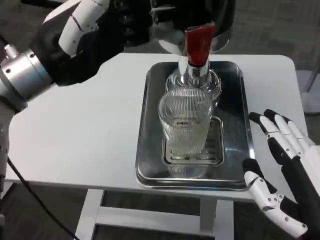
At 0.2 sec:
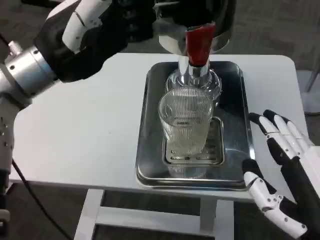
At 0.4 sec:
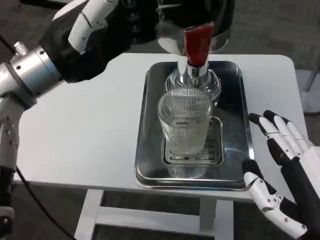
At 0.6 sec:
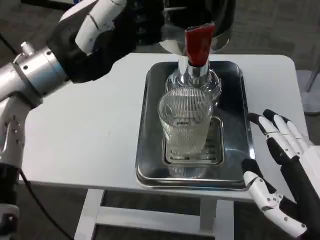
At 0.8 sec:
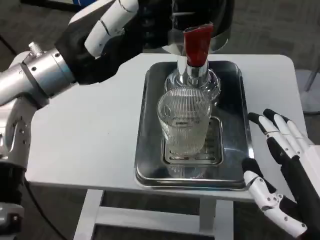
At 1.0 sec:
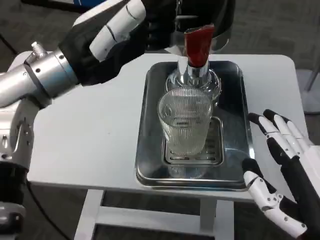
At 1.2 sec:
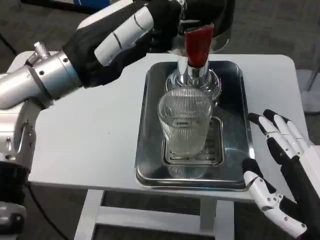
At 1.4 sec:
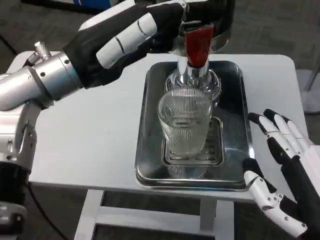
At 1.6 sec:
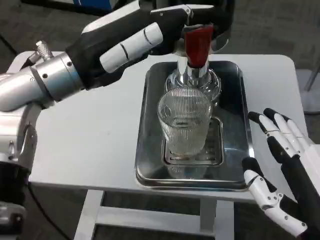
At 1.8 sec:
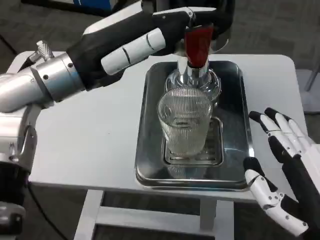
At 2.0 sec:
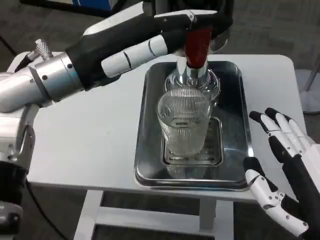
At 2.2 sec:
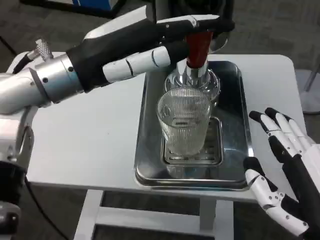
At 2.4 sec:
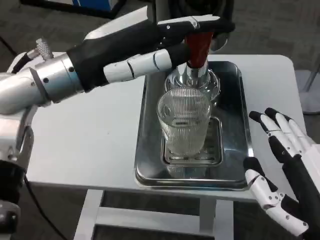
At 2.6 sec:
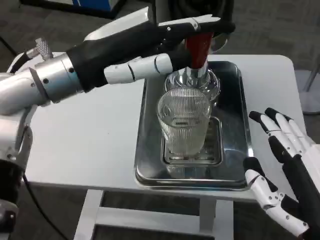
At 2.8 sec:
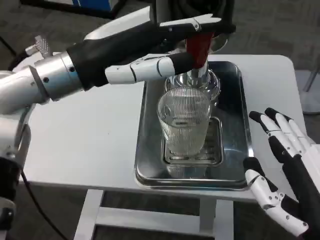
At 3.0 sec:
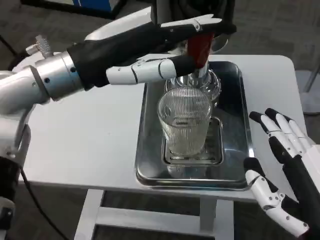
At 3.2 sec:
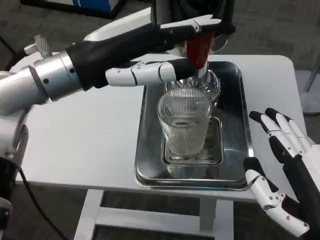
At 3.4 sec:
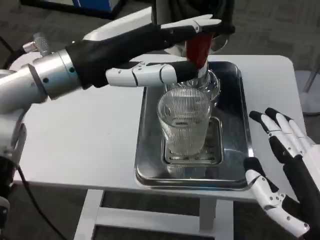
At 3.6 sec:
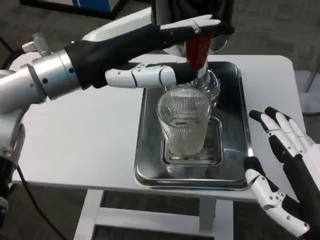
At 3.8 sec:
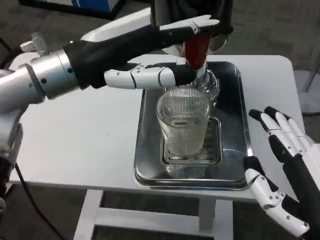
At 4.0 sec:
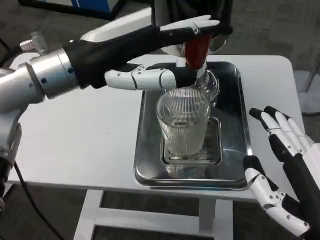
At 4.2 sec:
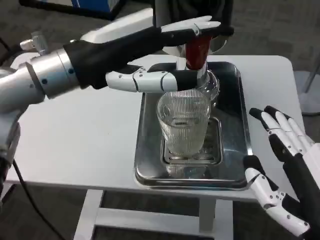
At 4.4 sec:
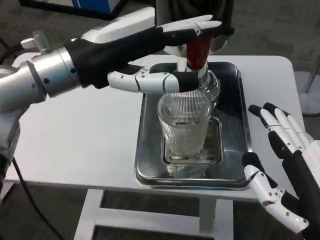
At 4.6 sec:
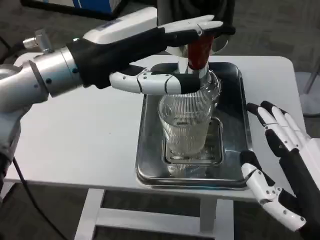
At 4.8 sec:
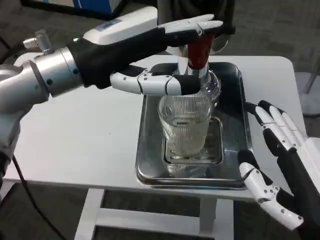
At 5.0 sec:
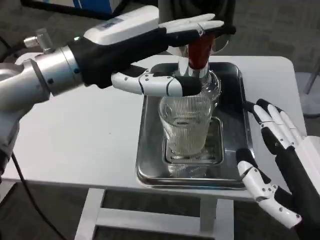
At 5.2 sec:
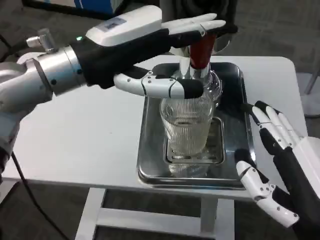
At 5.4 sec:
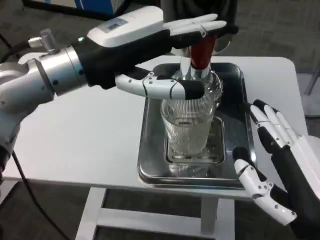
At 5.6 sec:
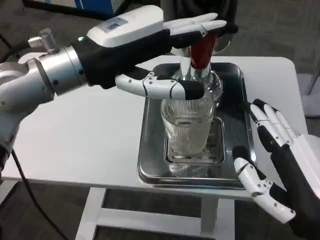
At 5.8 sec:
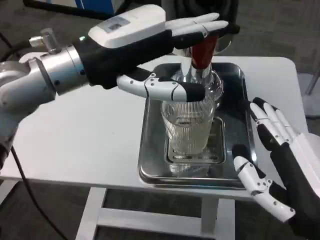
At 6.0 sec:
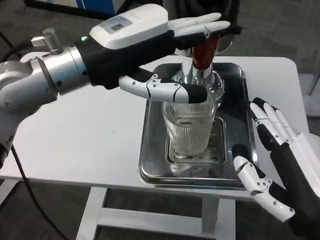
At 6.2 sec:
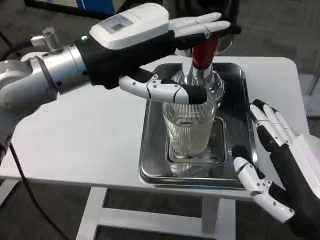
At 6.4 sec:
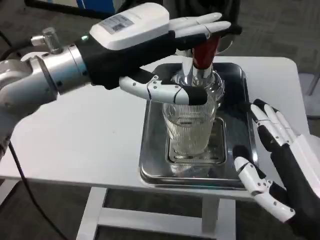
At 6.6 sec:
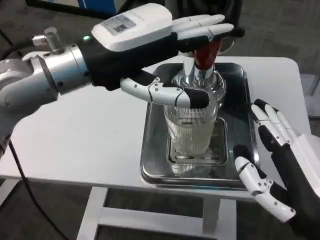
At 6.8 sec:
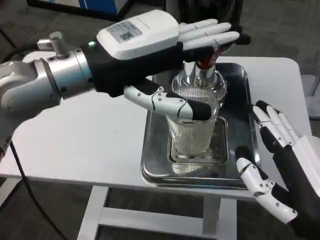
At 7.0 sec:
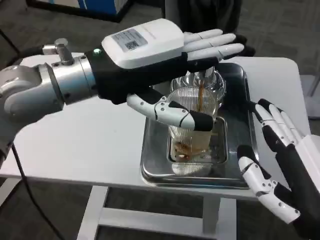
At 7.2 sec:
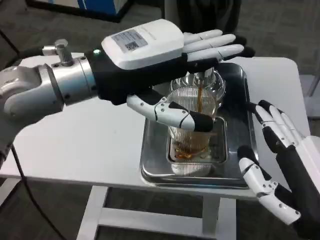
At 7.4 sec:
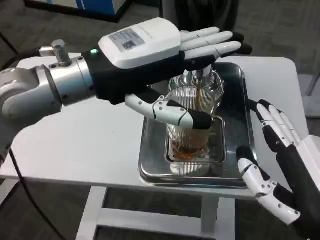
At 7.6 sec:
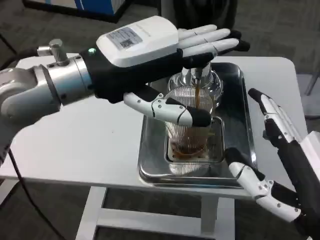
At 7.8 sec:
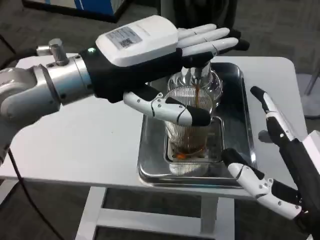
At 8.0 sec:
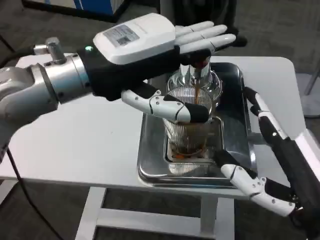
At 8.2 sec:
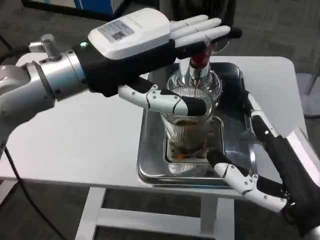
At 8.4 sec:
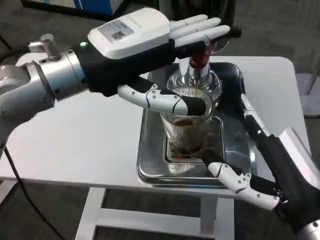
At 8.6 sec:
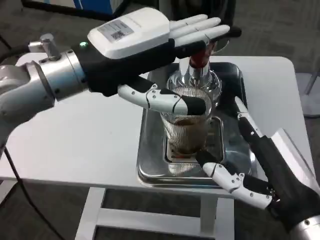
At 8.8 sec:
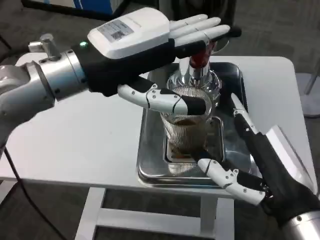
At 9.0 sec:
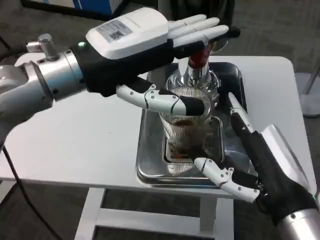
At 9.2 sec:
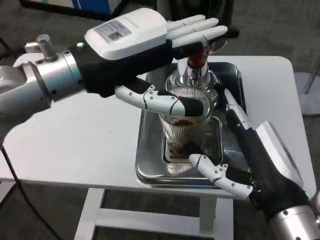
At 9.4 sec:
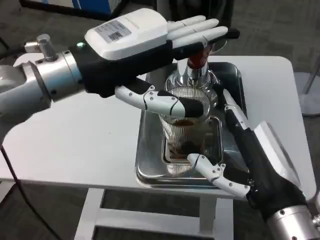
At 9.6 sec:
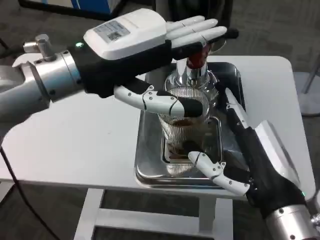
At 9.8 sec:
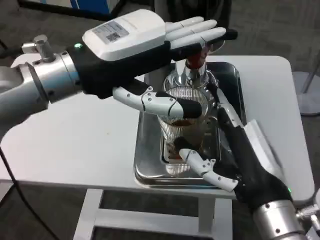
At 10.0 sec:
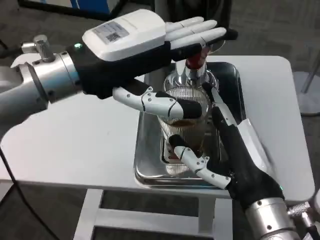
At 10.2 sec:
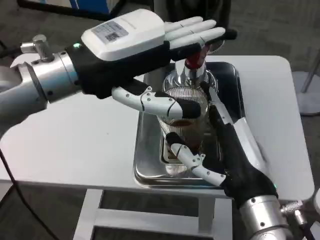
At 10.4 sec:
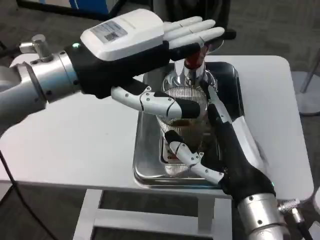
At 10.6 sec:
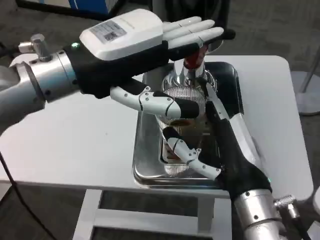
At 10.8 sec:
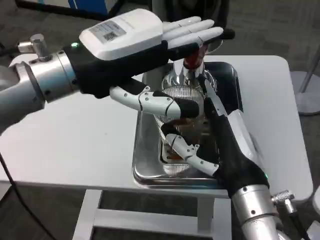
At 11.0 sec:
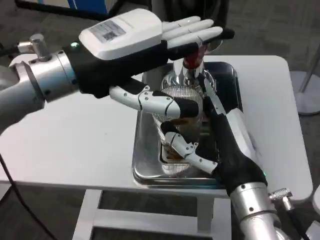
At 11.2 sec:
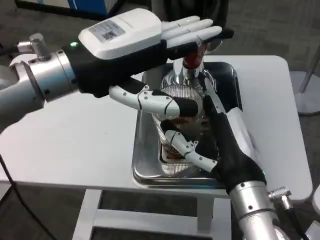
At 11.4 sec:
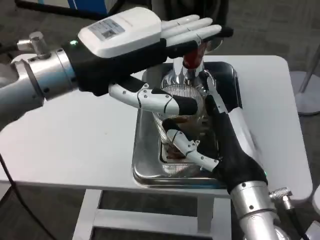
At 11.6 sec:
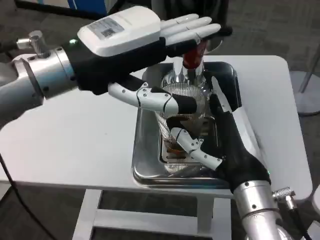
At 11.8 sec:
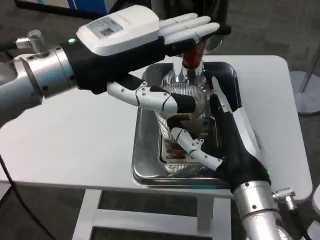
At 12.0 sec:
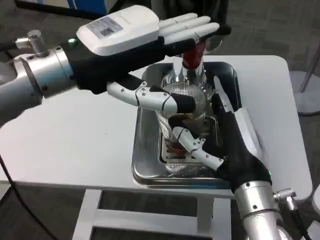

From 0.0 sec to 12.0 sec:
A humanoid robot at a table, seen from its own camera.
Task of the whole recording: Grasp the cup under the faucet to collect the drink, then remove the cup.
From 1.6 sec to 3.0 sec: The hands stay close to where they were, moving slightly.
From 7.6 sec to 9.0 sec: The right hand shifts by approximately 5 cm.
From 9.0 sec to 10.4 sec: The right hand ends up about 5 cm from where it was.

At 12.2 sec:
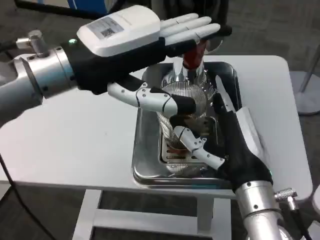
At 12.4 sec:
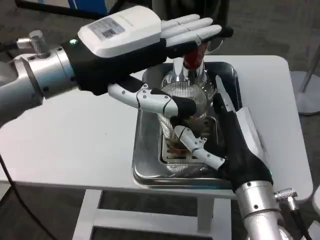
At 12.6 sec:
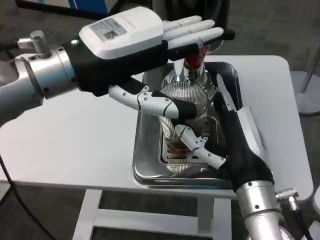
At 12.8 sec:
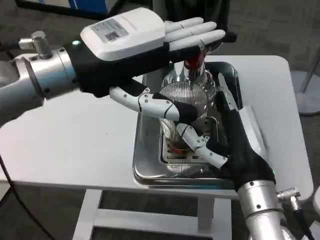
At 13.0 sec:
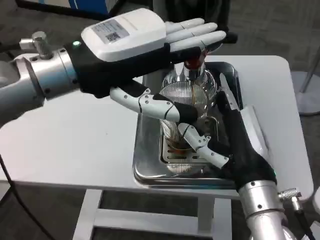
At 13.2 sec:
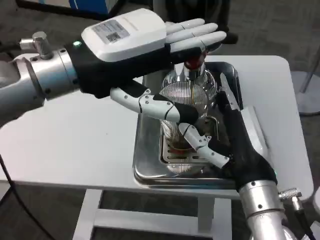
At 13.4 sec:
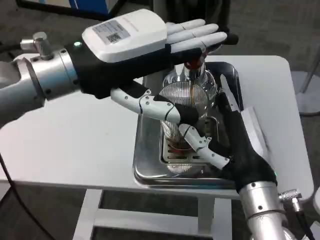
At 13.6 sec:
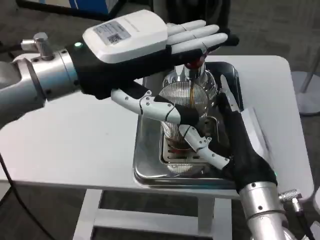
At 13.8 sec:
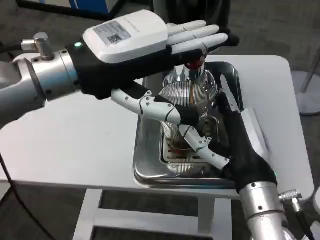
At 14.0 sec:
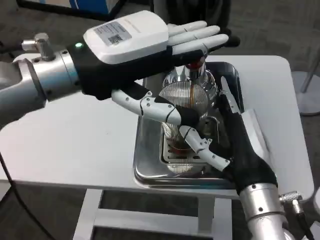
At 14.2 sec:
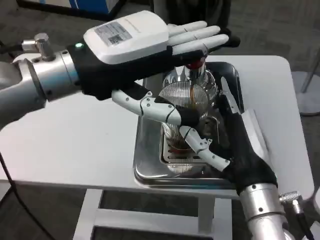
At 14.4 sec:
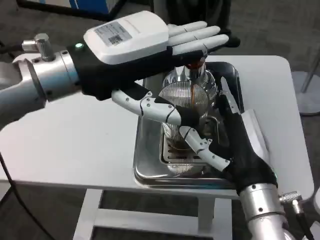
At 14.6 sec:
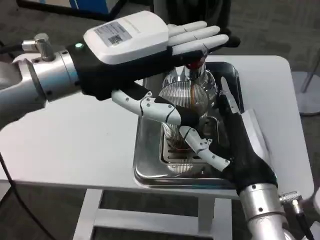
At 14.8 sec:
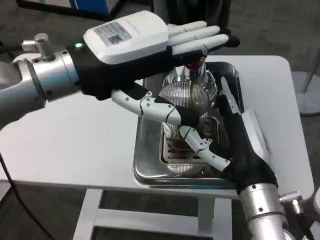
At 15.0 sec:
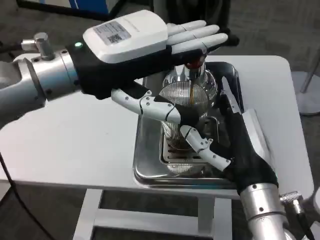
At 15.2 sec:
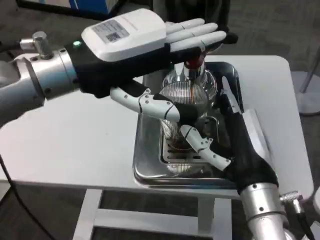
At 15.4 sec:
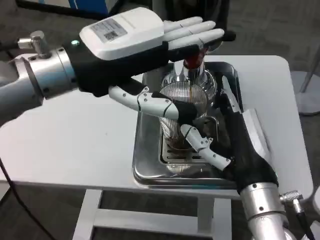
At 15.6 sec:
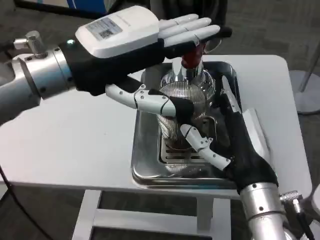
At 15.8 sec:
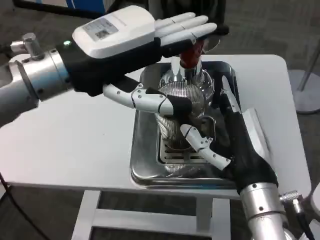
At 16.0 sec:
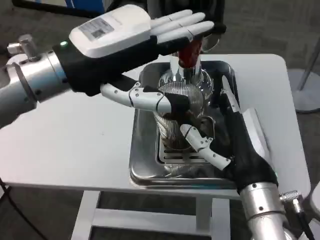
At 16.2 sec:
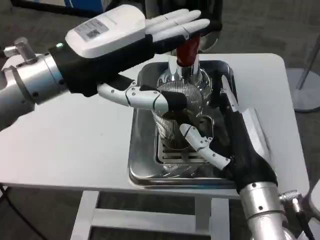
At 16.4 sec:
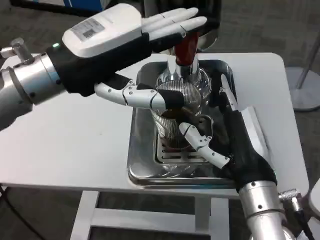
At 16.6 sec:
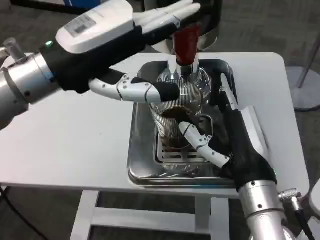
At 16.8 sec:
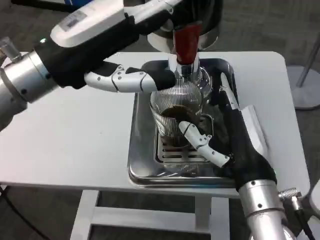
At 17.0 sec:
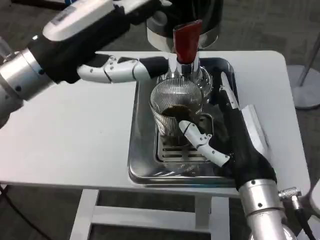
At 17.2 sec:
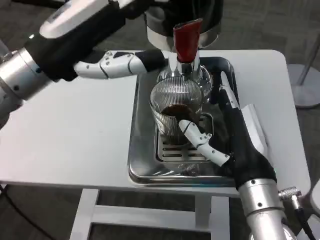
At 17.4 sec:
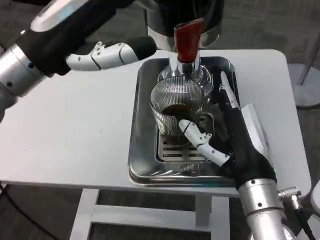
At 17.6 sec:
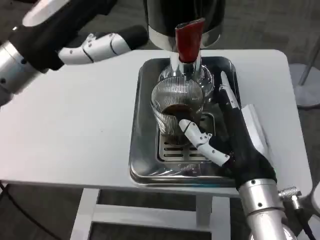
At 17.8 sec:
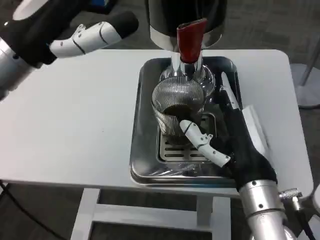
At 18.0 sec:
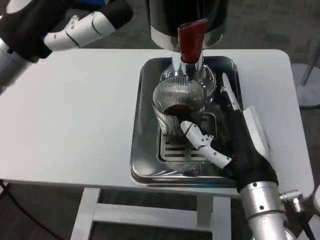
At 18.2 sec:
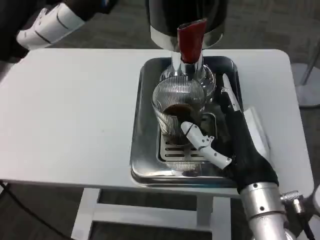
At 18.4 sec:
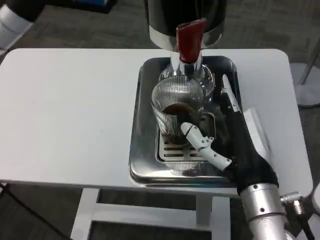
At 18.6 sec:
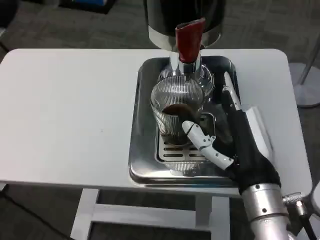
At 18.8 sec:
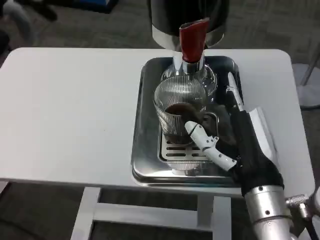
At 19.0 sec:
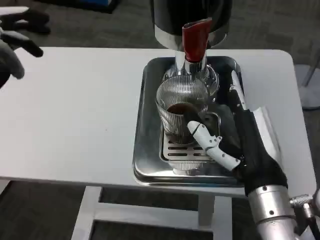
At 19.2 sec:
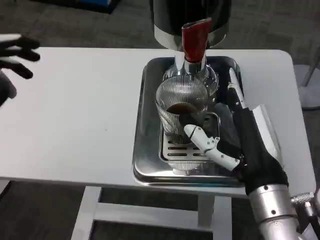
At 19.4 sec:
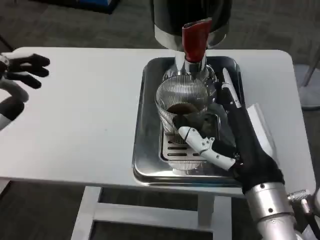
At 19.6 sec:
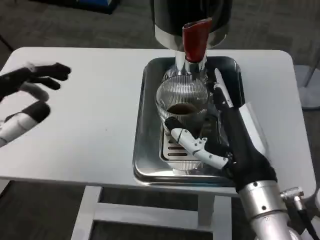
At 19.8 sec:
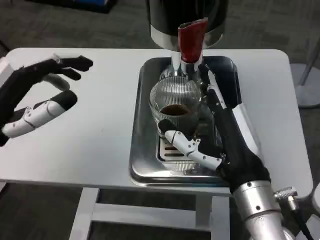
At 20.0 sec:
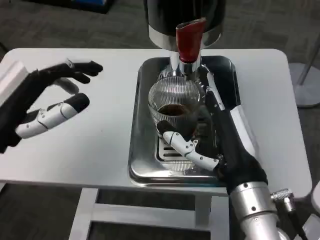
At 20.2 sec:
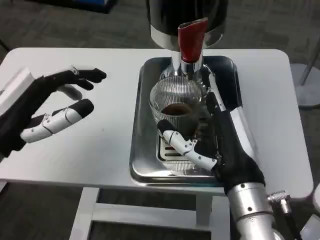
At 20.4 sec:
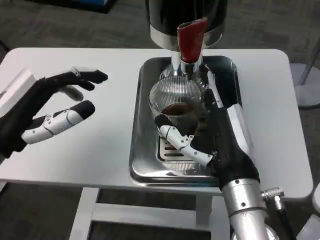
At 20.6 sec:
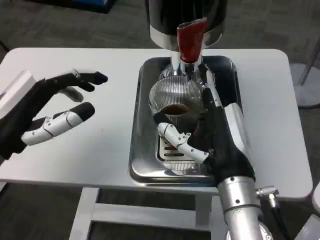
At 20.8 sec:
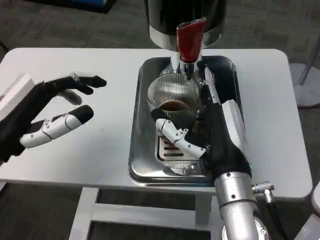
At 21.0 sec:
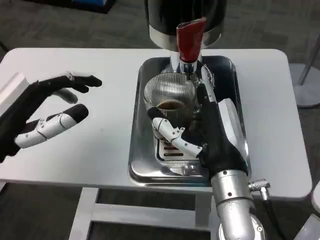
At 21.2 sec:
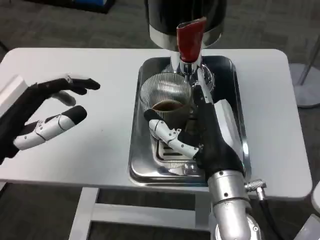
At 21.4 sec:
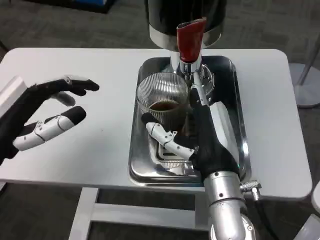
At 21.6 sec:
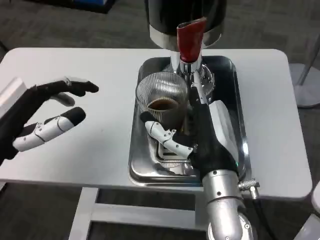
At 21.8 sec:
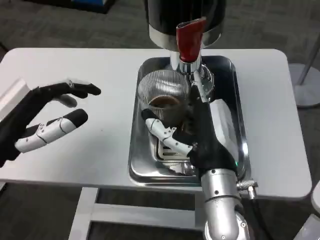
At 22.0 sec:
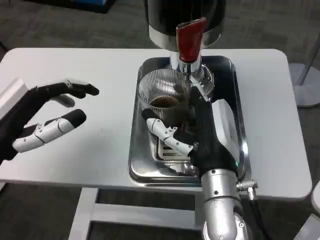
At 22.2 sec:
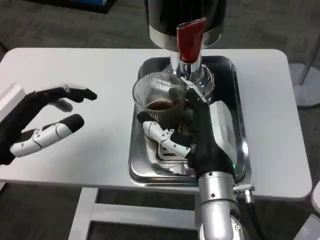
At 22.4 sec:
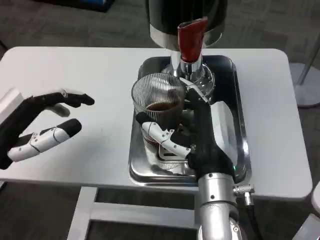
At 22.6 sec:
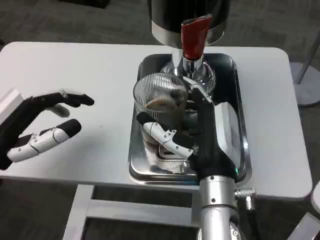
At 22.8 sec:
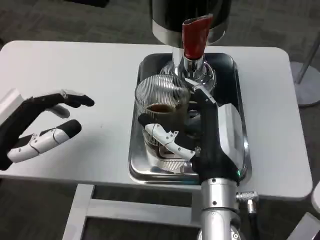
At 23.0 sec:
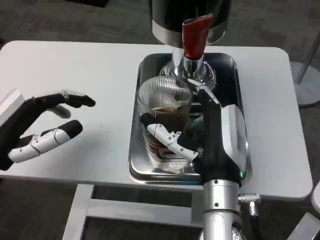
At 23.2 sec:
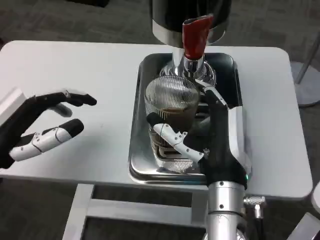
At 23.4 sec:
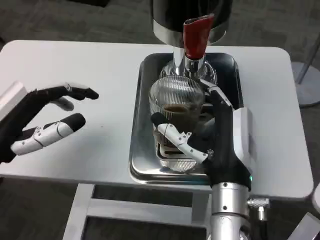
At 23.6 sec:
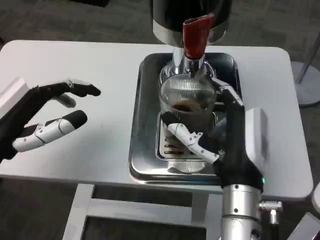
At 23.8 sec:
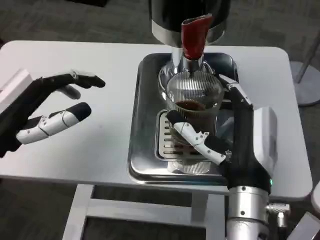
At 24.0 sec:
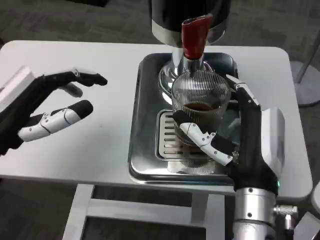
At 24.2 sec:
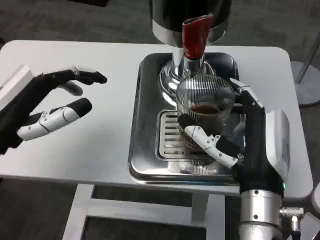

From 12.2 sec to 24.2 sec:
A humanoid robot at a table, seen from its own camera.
Task of the whole recording: Grasp the cup under the faucet to collect the drink, then remove the cup.
From 13.8 sec to 15.2 sec: The two hands keep their place.
From 18.2 sec to 19.8 sec: The left hand is displaced downward by roughly 10 cm.
